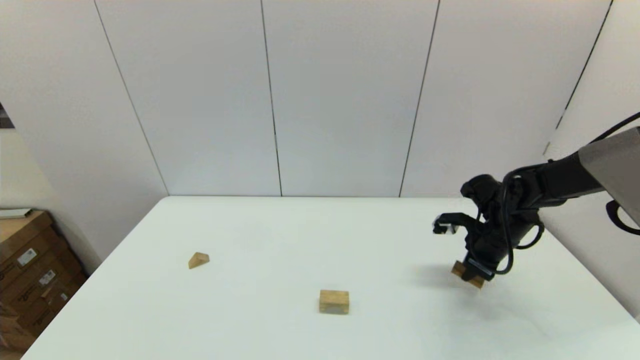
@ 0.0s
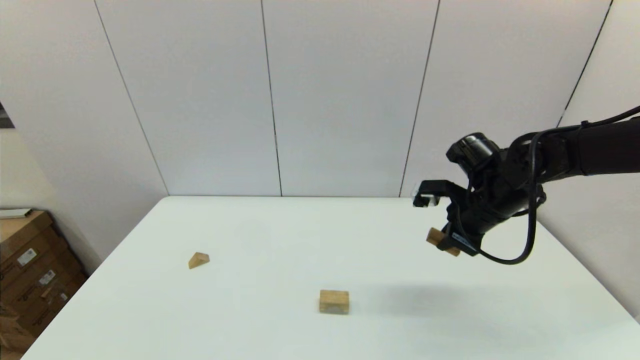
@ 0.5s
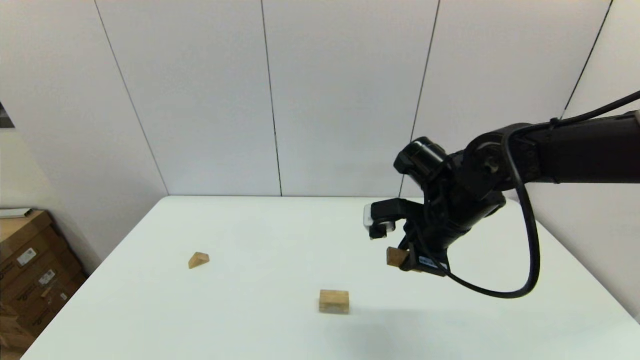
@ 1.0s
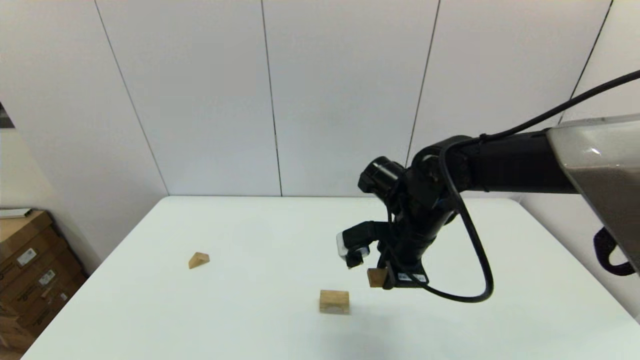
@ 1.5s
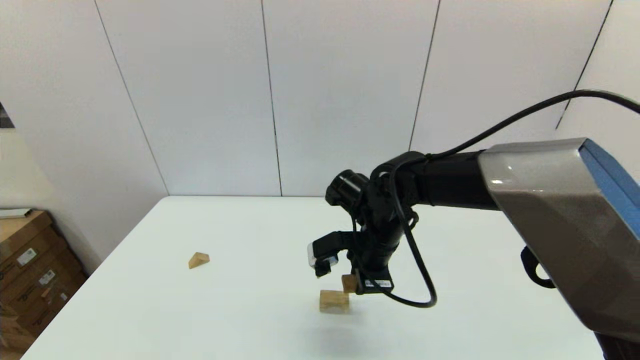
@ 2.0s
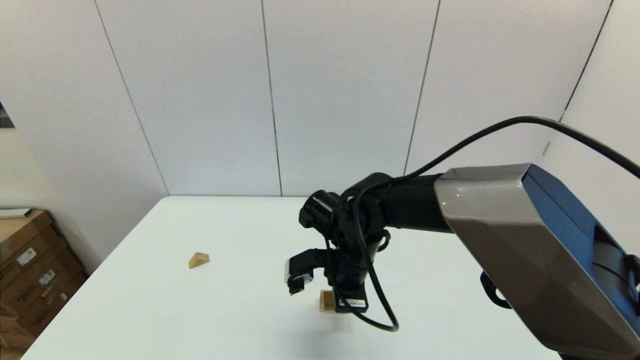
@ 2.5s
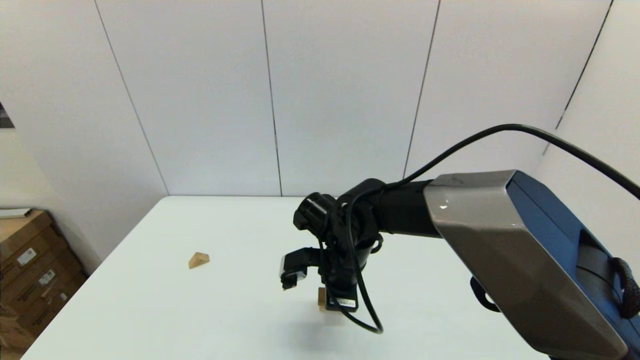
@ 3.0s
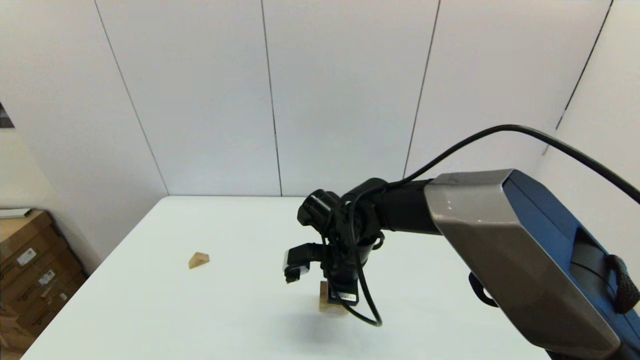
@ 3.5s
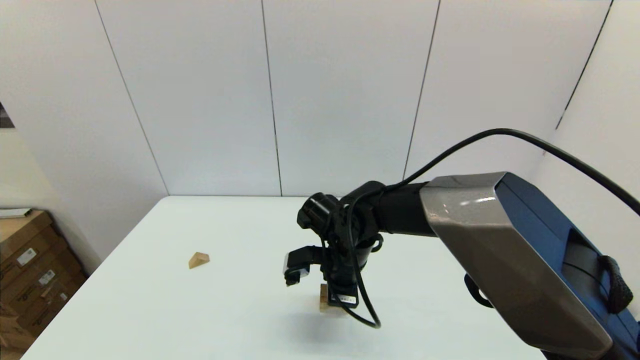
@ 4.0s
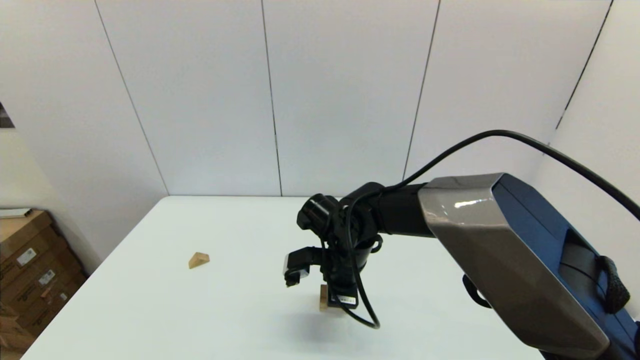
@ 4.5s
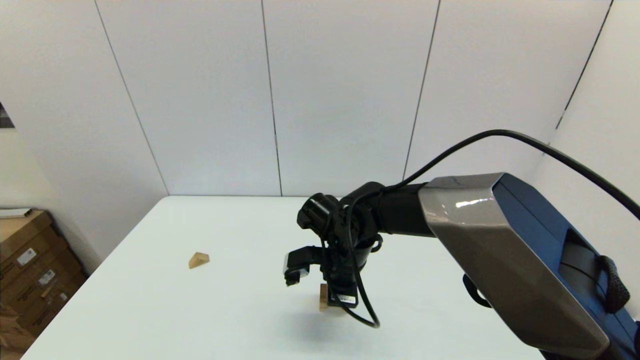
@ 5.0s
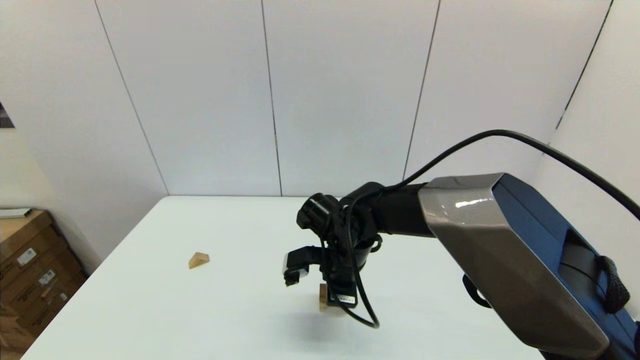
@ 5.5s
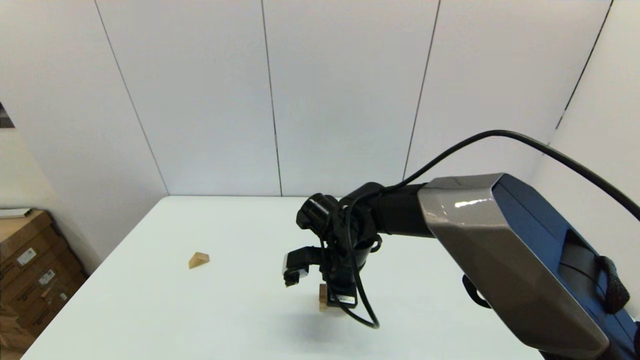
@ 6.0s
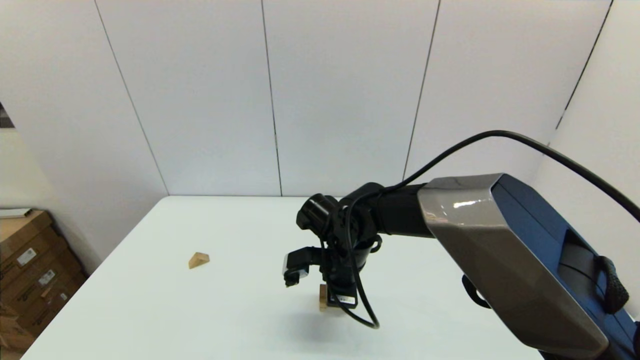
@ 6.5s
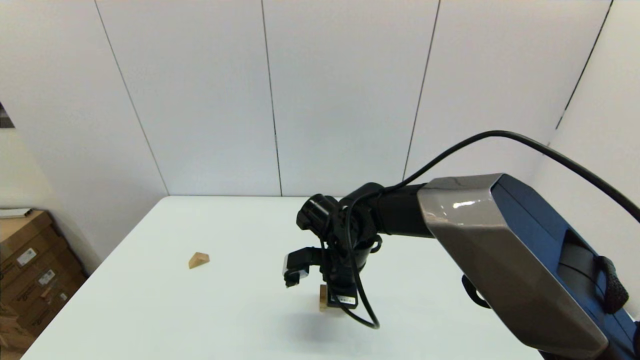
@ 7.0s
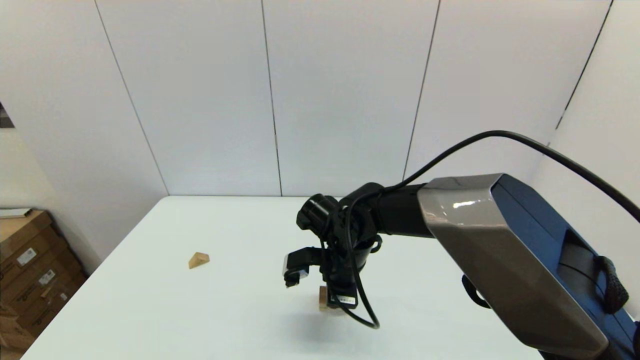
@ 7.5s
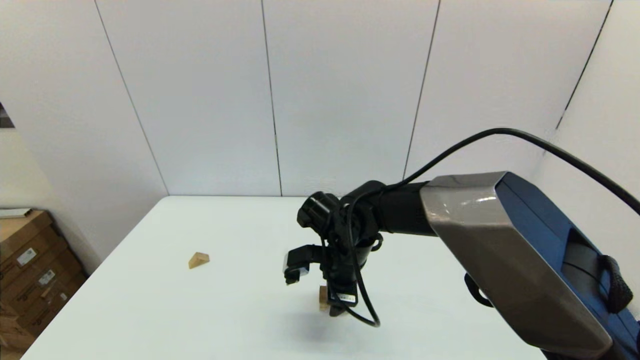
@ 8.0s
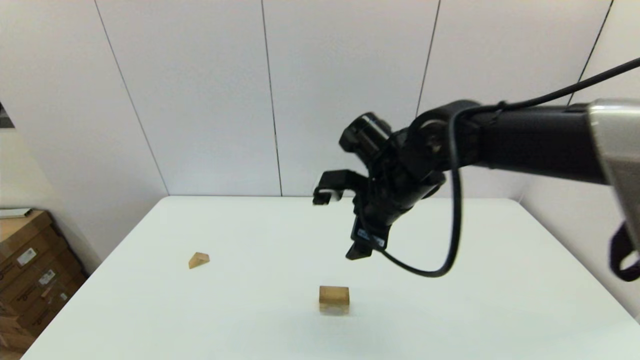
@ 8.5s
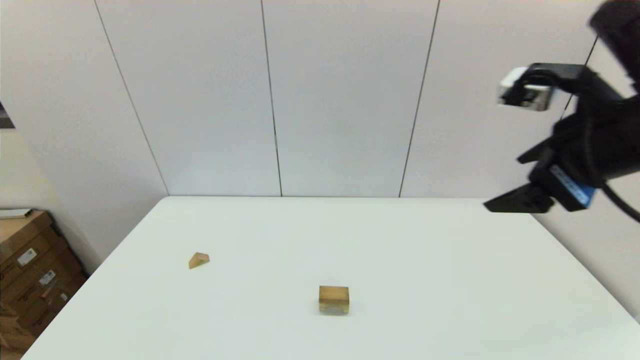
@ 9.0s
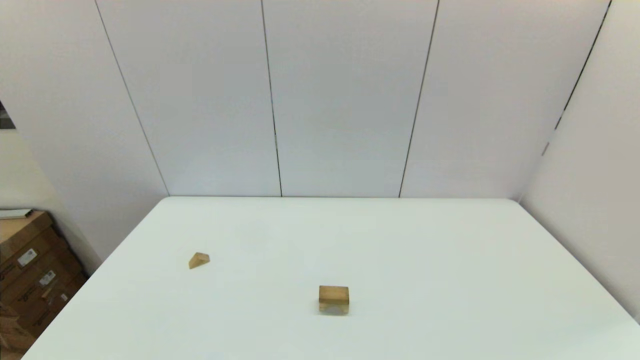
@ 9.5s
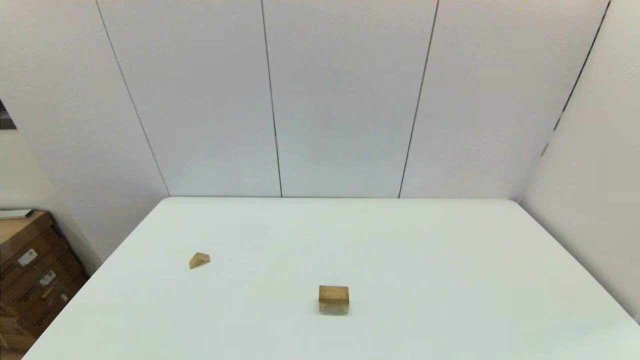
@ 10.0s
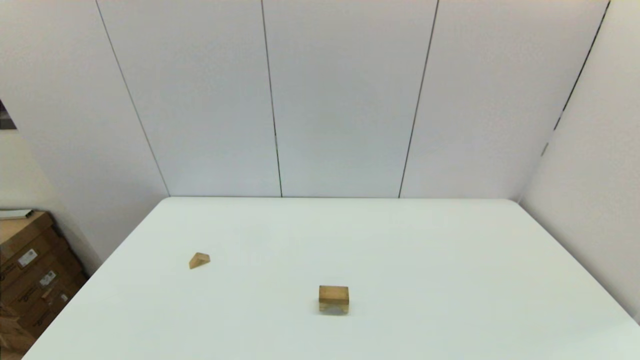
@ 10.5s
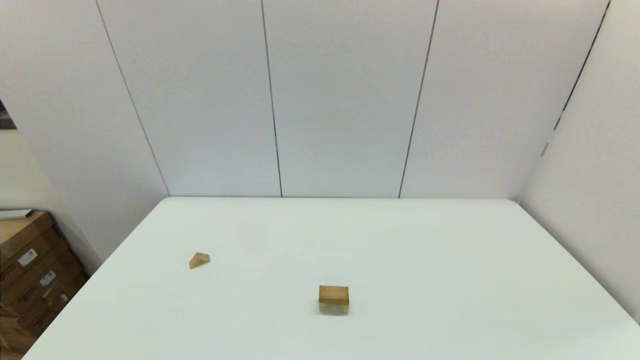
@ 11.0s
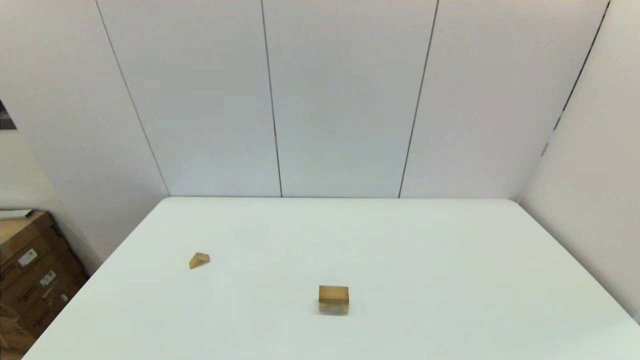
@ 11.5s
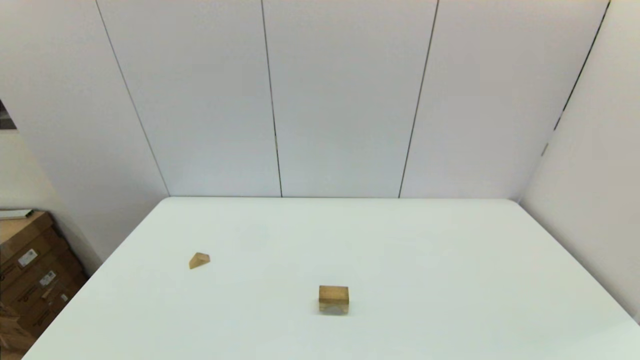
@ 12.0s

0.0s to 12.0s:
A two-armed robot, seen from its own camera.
Task of the whole recording: place the arched building blocks in the center of the table, set up the rectangular building blocks, and then set up the triangular building blocks.
Step, 0.0s to 7.5s: Place the box-shaped block onto the arch-shaped block with the right gripper.
0.0s to 2.0s: The right gripper heads to the left, covering about 25 cm.
2.0s to 4.0s: The right gripper changes place by approximately 5 cm.
4.0s to 6.0s: The two grippers keep their place.
6.0s to 8.0s: The right gripper opens up.
8.0s to 10.0s: The right gripper moves backward and to the right, roughly 50 cm.

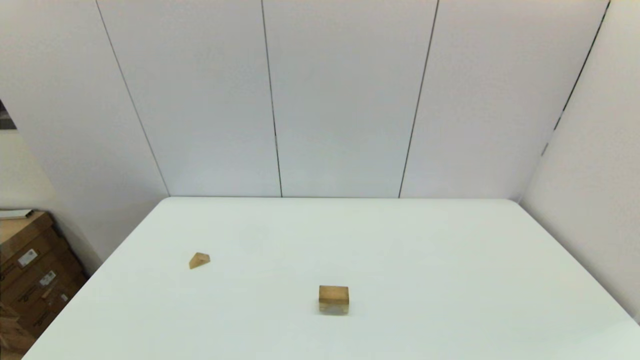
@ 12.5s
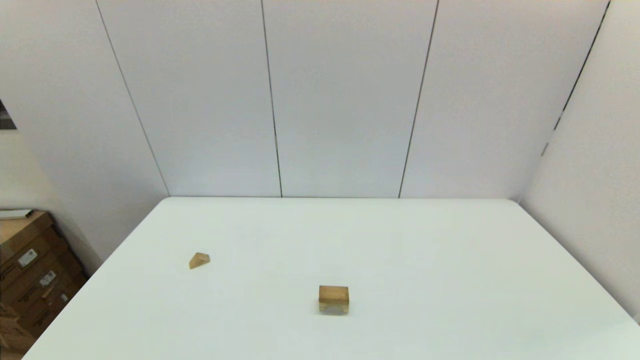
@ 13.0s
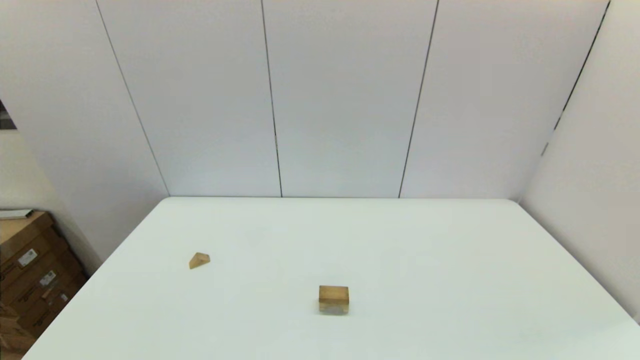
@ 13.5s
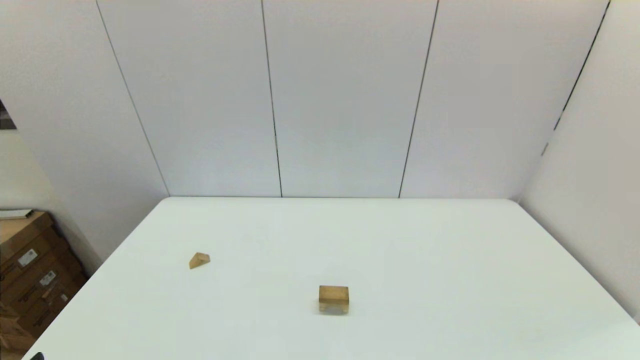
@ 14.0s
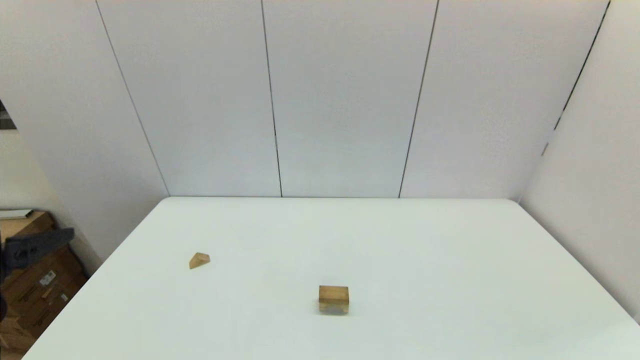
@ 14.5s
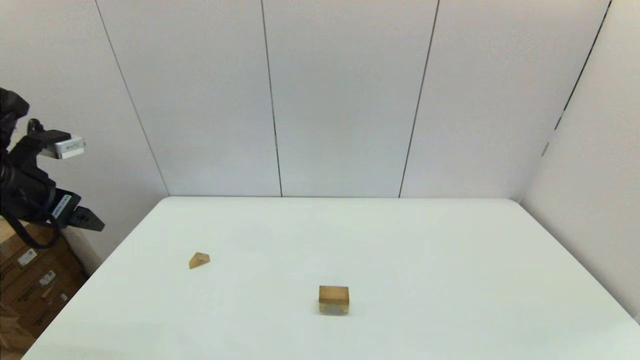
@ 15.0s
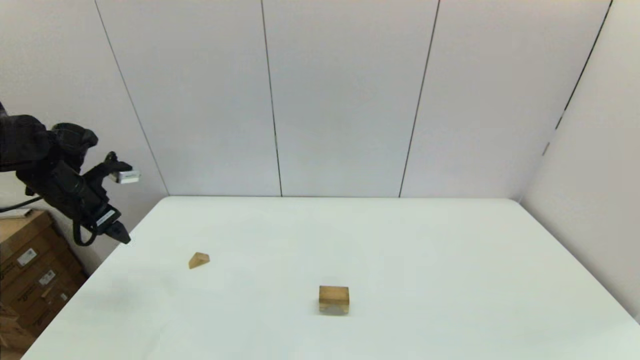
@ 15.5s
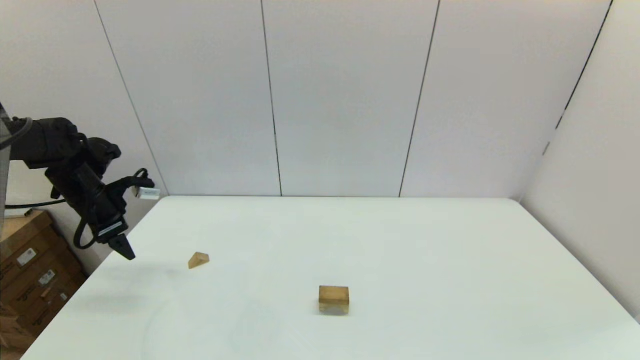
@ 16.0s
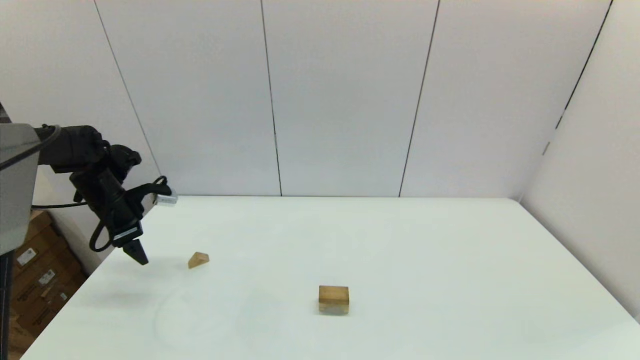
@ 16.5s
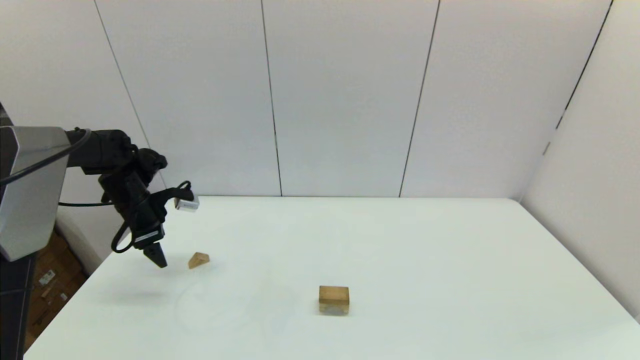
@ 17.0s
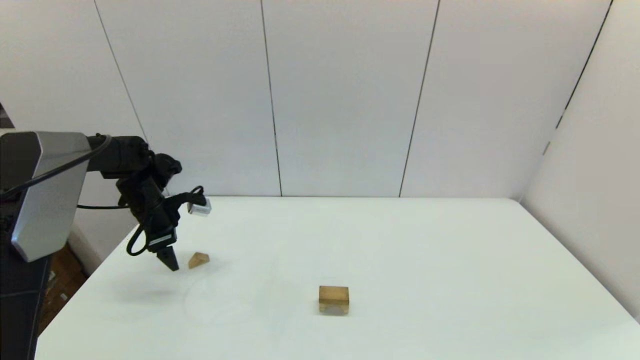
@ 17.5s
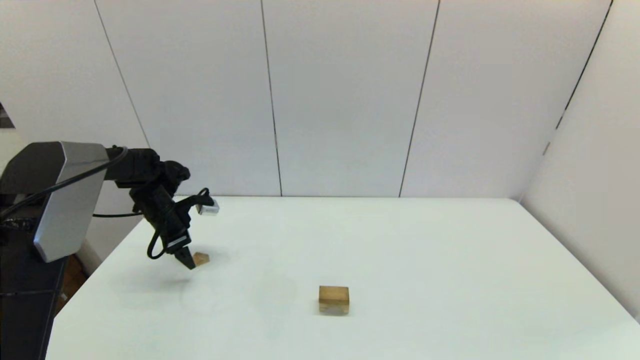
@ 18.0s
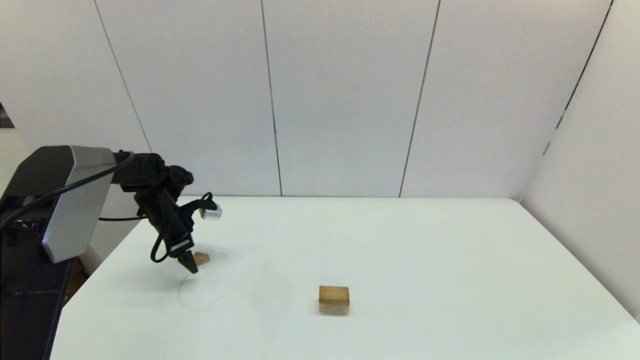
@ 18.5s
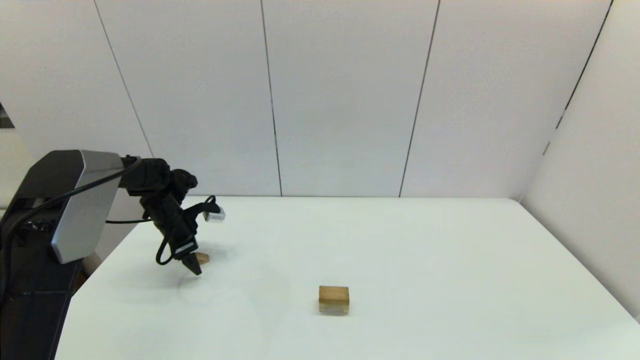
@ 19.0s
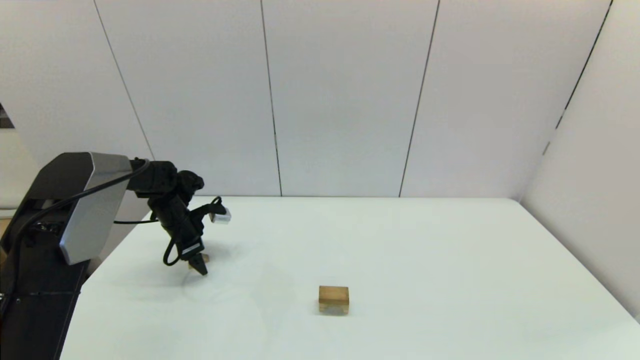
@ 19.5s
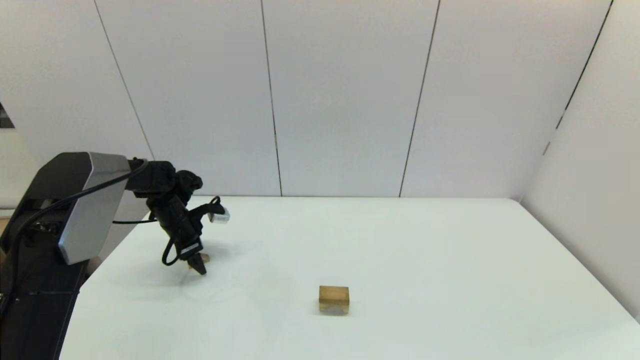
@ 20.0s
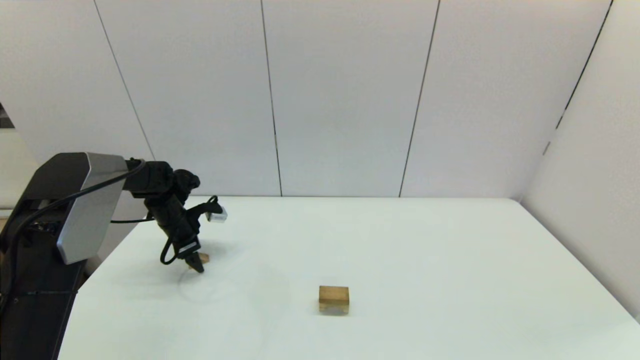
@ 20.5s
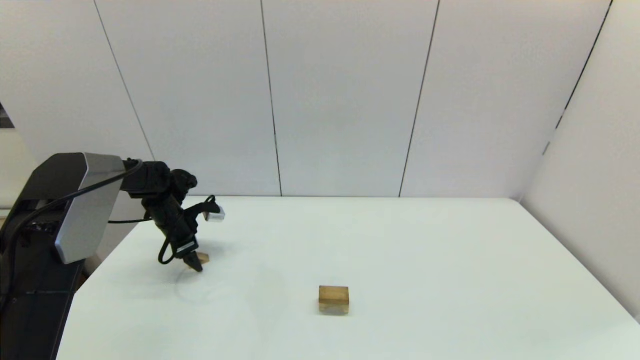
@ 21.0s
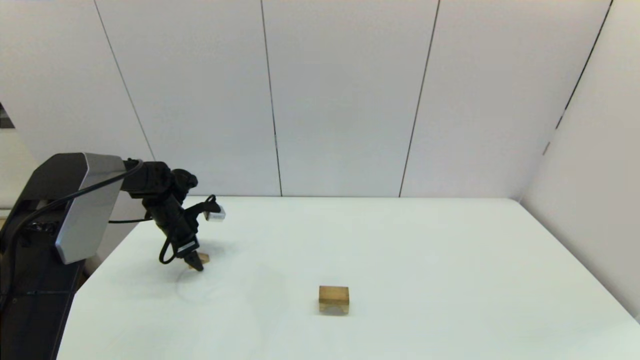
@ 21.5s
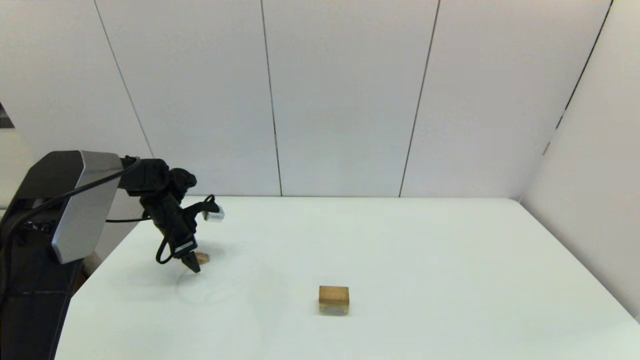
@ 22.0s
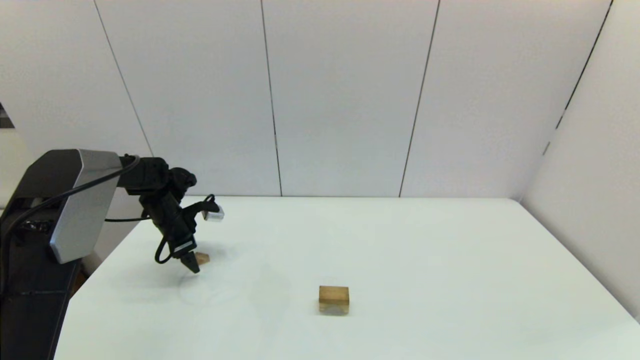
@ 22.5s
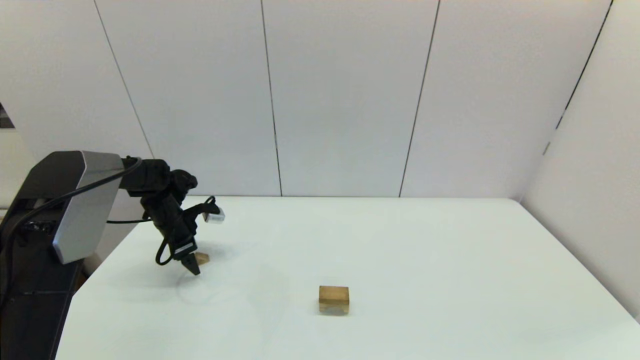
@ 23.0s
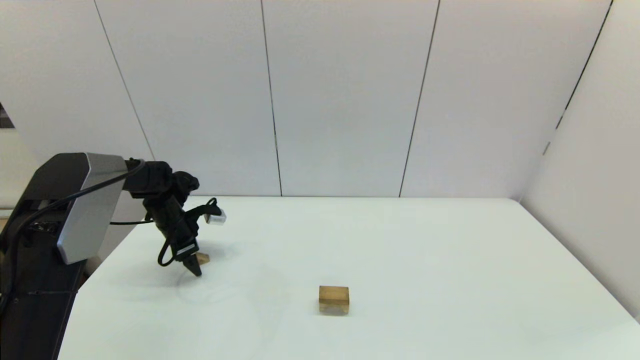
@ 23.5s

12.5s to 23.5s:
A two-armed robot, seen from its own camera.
Task of the whole recording: place the arched building blocks in the center of the table, set up the rectangular building blocks, and then set up the triangular building blocks.
14.5s to 16.0s: The left gripper goes some 30 cm forward and downward.
16.0s to 18.0s: The left gripper travels to the right and downward by some 10 cm.
18.0s to 20.0s: There are only small adjustments of the grippers.
20.0s to 23.5s: Both grippers stay about where they are.
